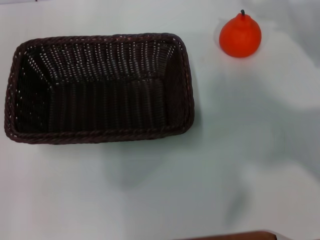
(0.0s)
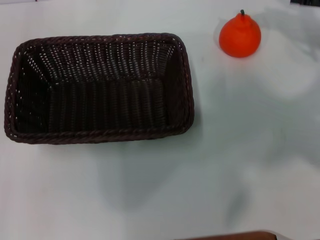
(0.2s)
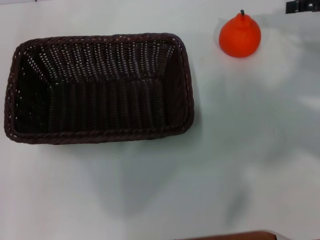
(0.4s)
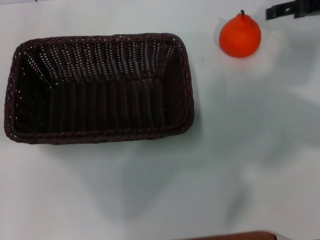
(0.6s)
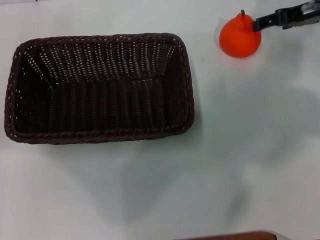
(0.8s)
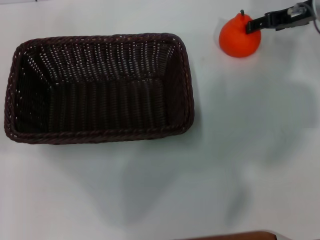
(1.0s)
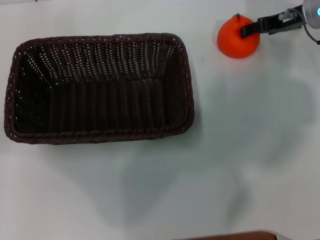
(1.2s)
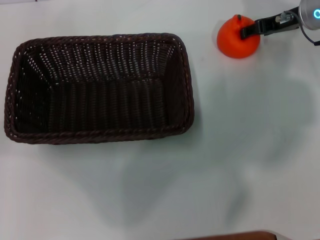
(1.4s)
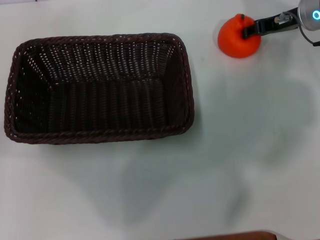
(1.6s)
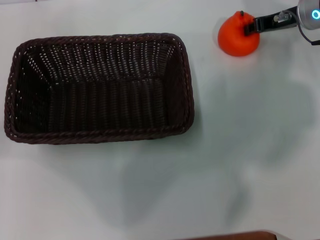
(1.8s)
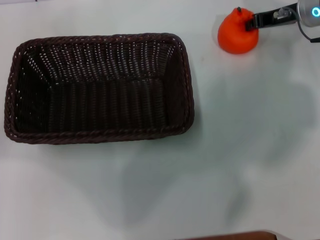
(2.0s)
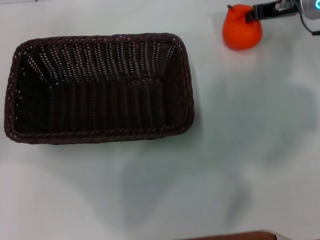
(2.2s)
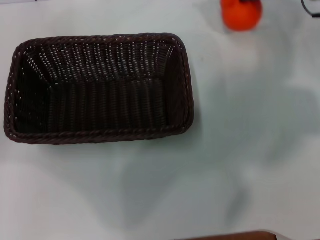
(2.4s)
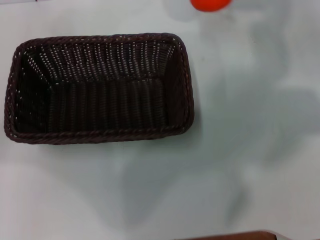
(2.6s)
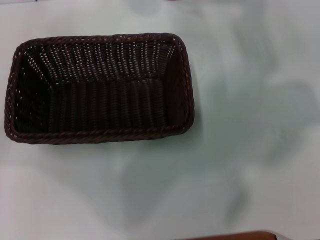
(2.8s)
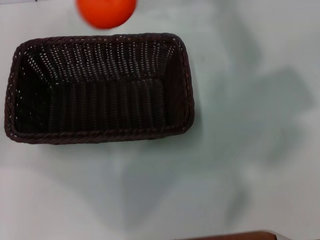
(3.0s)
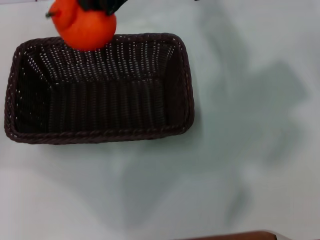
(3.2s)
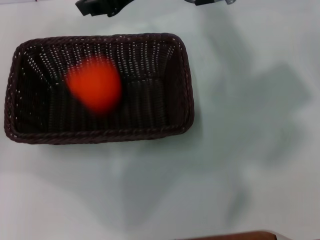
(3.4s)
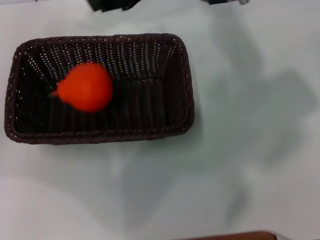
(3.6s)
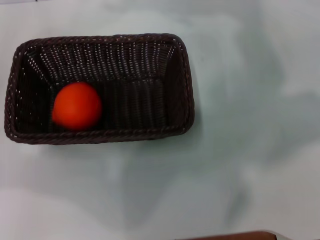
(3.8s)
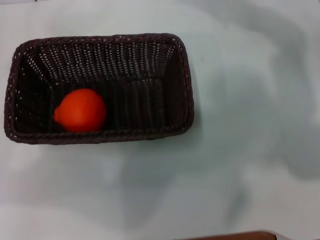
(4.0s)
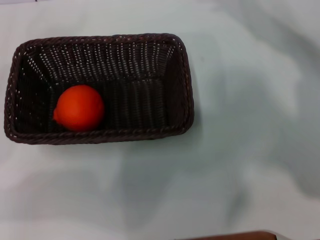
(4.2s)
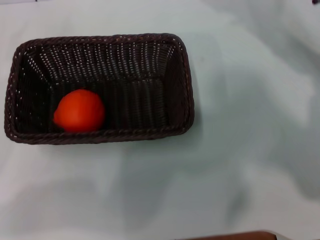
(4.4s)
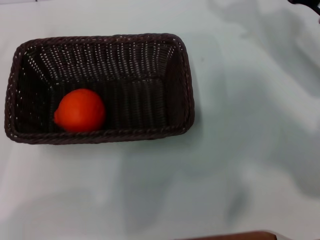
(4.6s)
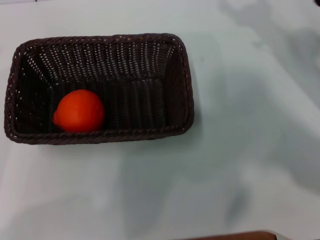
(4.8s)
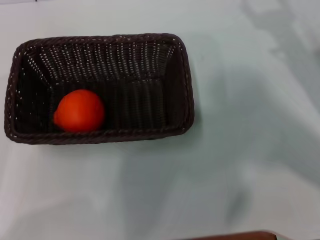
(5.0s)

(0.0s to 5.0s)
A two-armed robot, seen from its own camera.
Task of the whole recording: the left gripper pick up the black basket and place it horizontally in the middle of the table, the right gripper pick up the orange and place it into the black basket.
Step, 0.0s - 2.2s: Pick up the orange with the right gripper.
Step, 2.4s - 3.8s: Place the orange into the dark basket with the right gripper.
0.0s - 1.6s: The left gripper shifts about 5 cm downward. Meanwhile the right gripper heads to the left and forward, covering approximately 15 cm.
1.6s - 3.4s: The right gripper is displaced to the left and upward by some 25 cm, and closes.
3.4s - 5.0s: The right gripper goes some 30 cm to the right and downward, and opens its fingers, while the left gripper goes roughly 15 cm downward and backward.
